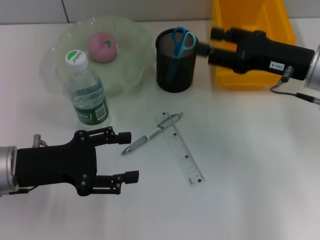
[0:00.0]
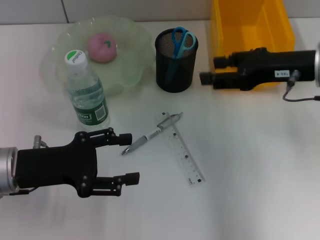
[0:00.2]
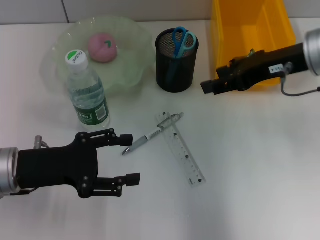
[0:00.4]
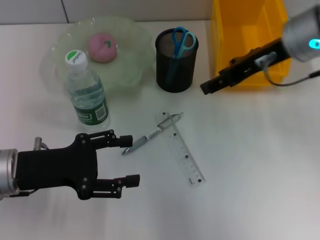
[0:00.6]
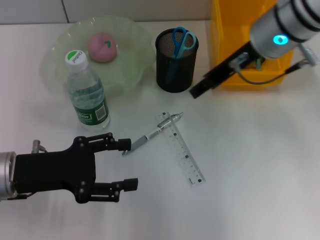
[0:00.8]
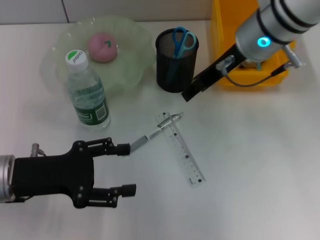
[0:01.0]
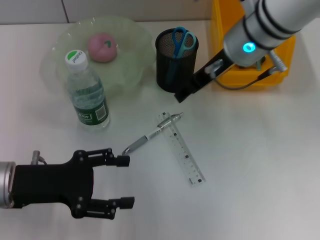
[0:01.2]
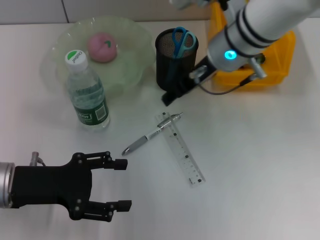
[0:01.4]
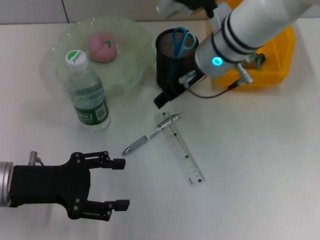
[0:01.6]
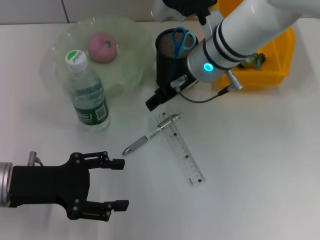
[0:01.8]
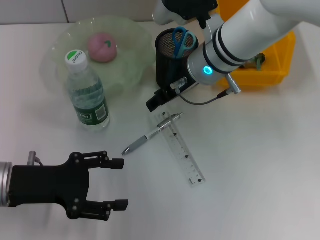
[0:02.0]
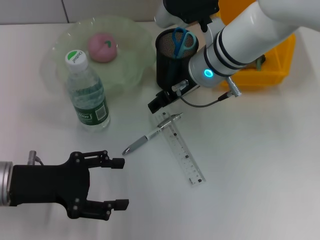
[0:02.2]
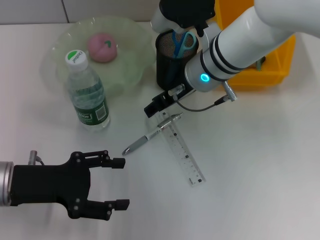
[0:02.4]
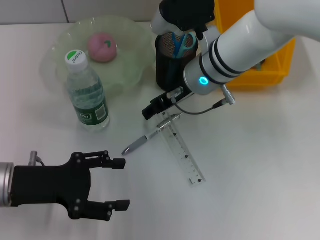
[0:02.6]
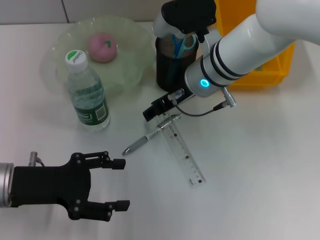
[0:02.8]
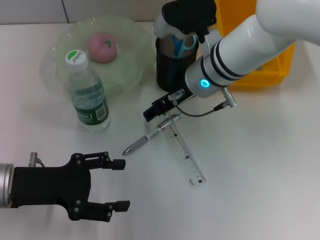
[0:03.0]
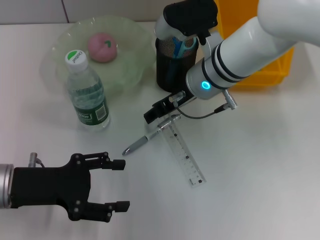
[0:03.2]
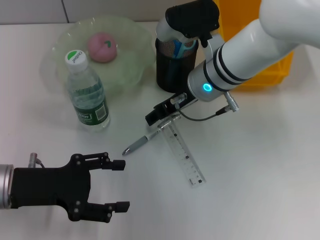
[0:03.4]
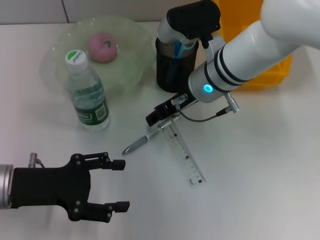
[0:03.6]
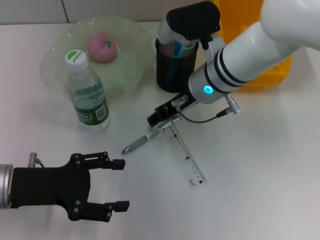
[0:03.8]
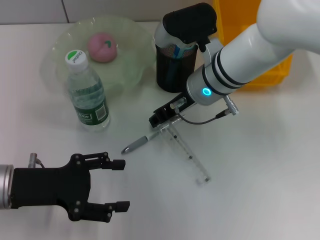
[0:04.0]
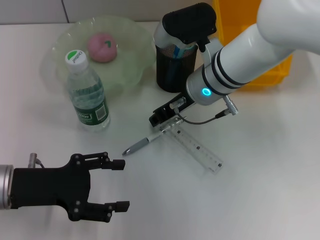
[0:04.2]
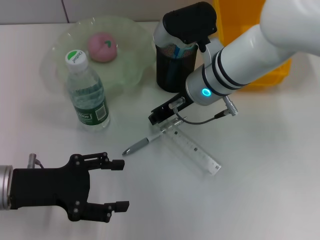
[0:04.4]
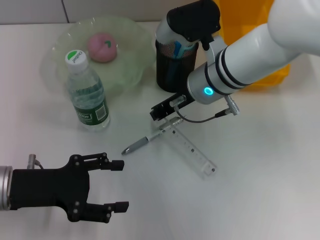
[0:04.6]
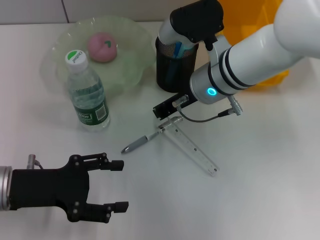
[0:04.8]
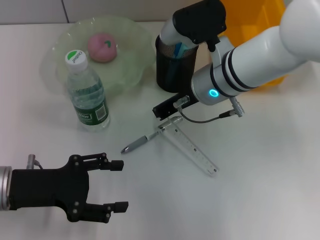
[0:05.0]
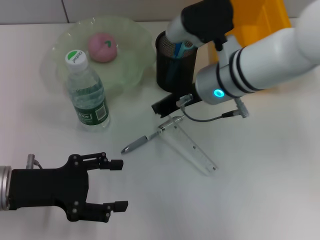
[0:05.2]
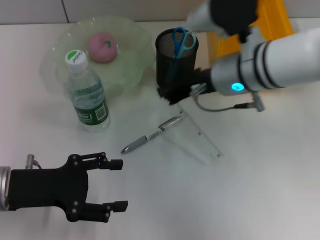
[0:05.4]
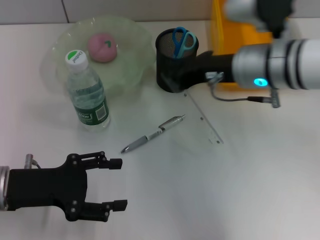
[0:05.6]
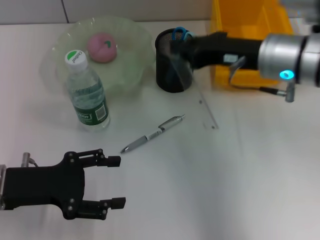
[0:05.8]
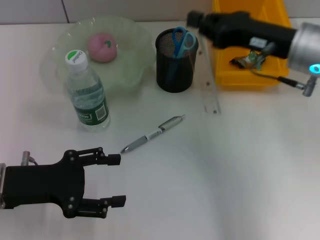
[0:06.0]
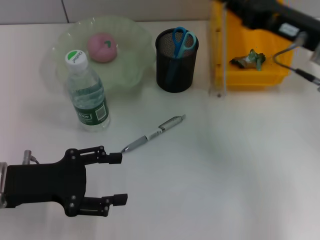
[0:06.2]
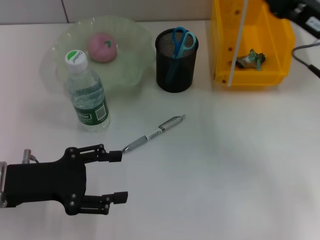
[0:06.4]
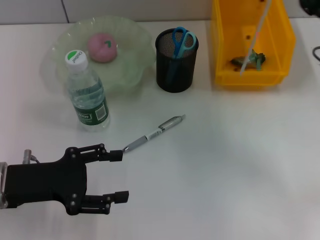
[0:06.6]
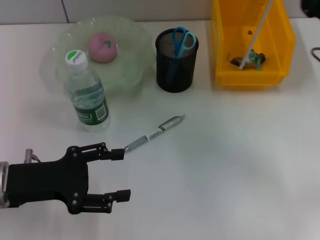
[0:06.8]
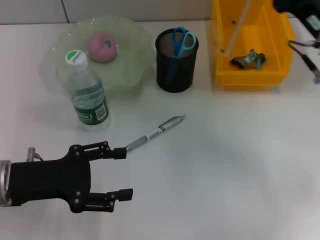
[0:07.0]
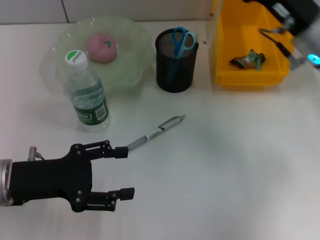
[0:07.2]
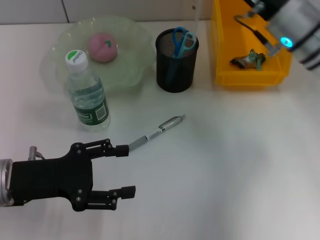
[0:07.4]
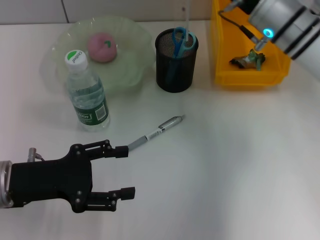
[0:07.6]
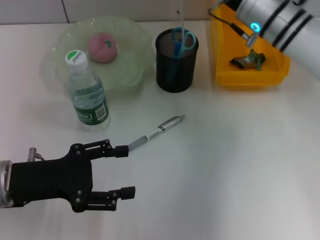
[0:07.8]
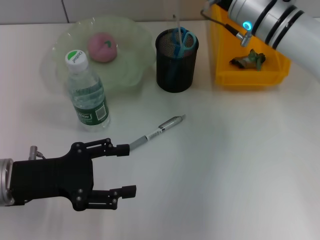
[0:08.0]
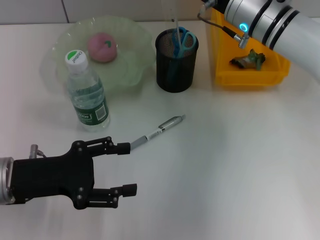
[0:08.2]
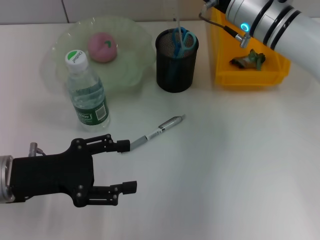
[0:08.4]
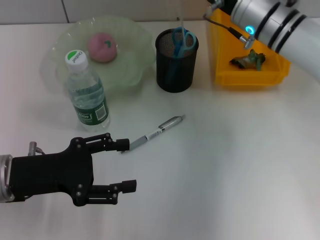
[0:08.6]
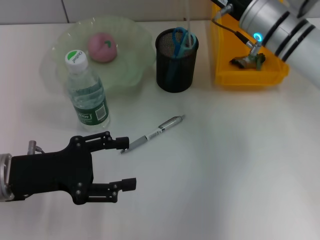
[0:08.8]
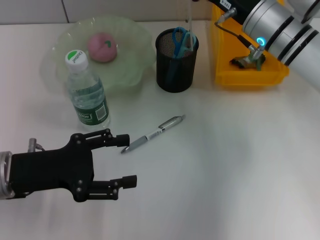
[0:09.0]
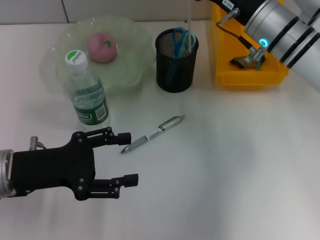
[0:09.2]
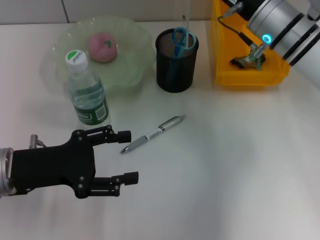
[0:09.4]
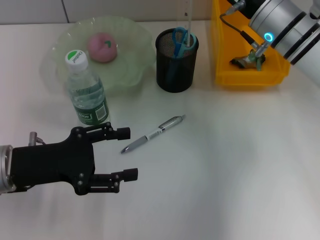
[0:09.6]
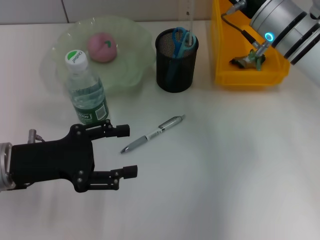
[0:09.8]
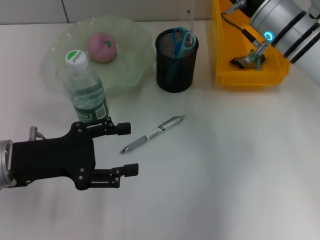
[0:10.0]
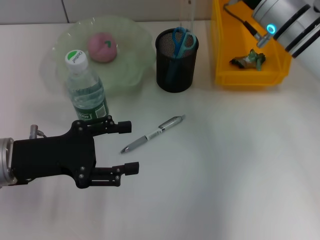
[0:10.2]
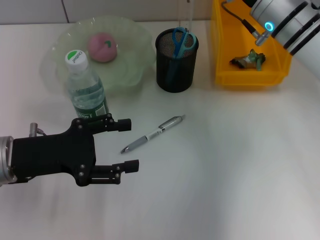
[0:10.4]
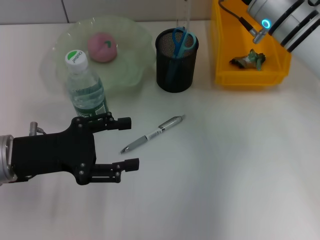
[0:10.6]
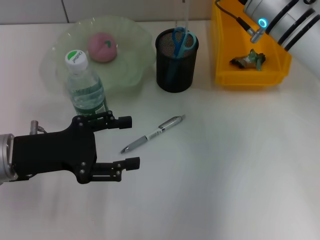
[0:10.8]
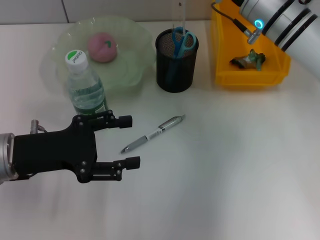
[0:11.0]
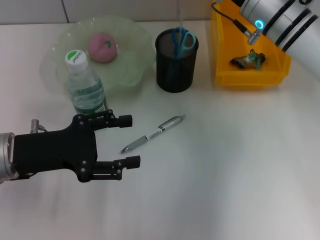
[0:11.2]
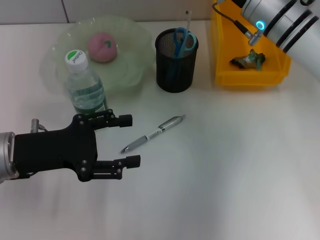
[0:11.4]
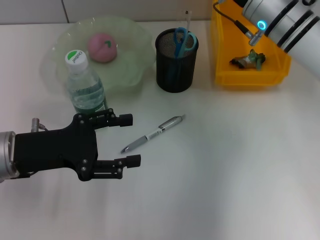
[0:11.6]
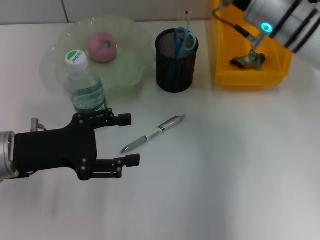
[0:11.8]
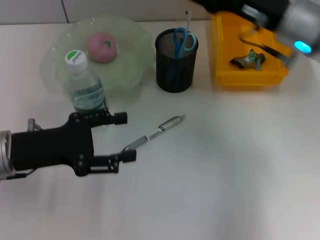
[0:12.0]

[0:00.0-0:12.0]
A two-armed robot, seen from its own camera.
Step, 0:00.0 to 0:04.8: Grab the ruler with the right hand.
0:00.0 to 0:01.6: The right gripper moves to the left, roughly 15 cm.
0:01.6 to 0:03.0: The grippers stay close to where they were, moving slightly.
0:03.0 to 0:04.4: The right gripper closes up.
0:04.4 to 0:06.0: The right gripper travels to the right by approximately 15 cm, and closes.
0:06.0 to 0:07.6: The right gripper is displaced forward by some 5 cm.
0:07.6 to 0:10.4: The grippers move only a little.
0:10.4 to 0:12.0: The right gripper travels backward by about 5 cm, and opens up.

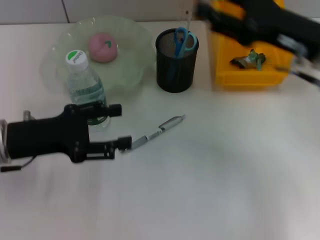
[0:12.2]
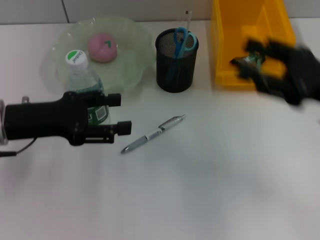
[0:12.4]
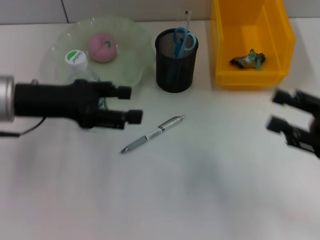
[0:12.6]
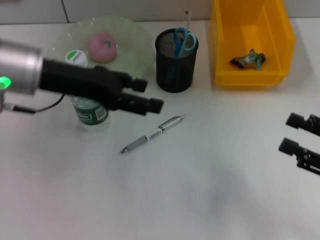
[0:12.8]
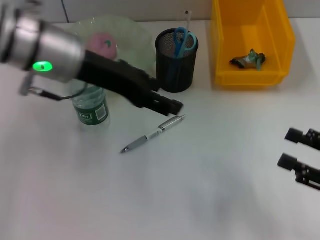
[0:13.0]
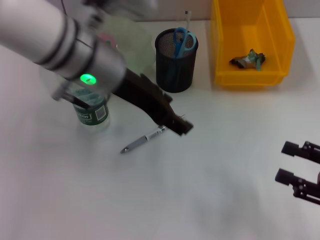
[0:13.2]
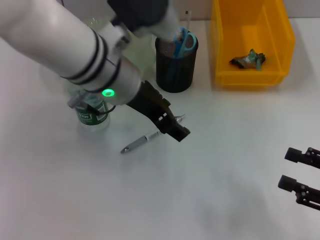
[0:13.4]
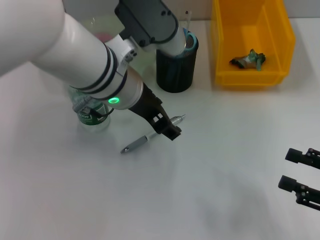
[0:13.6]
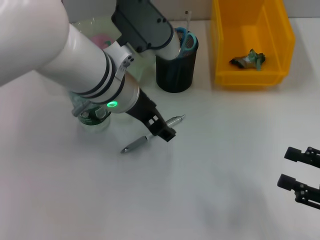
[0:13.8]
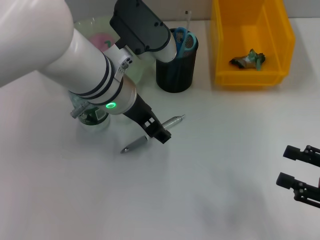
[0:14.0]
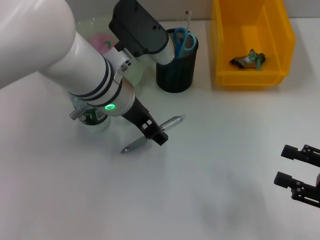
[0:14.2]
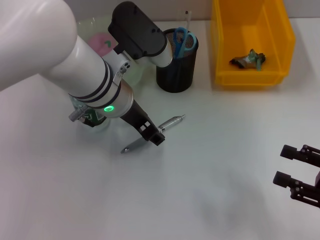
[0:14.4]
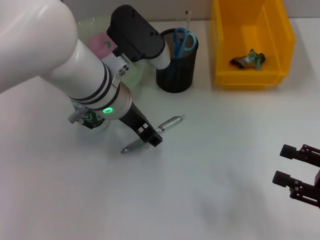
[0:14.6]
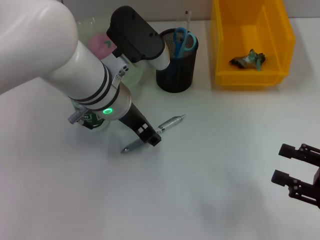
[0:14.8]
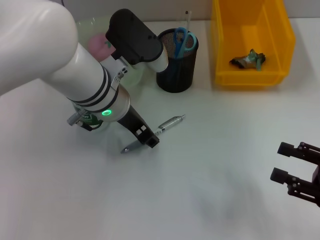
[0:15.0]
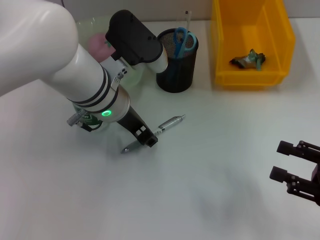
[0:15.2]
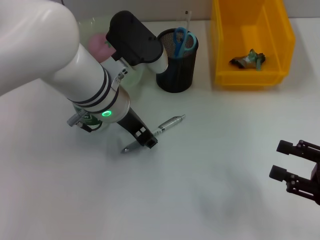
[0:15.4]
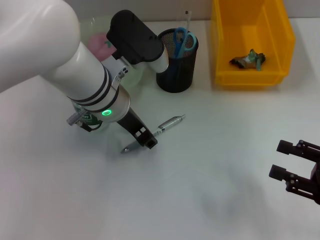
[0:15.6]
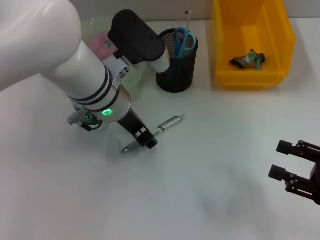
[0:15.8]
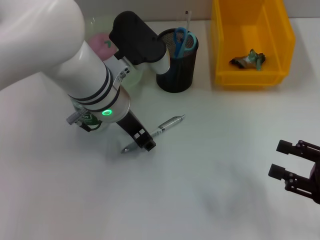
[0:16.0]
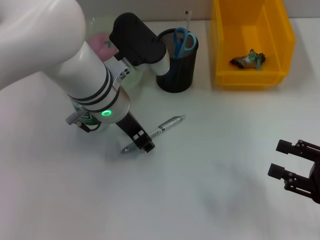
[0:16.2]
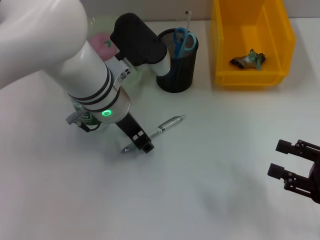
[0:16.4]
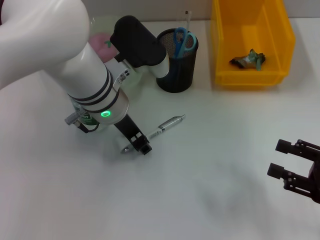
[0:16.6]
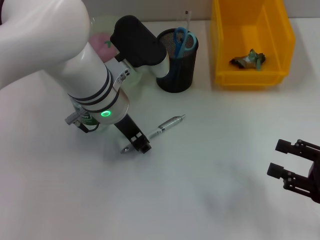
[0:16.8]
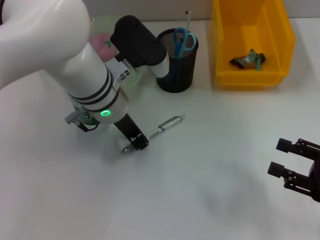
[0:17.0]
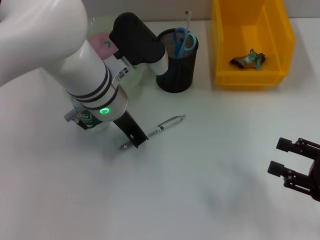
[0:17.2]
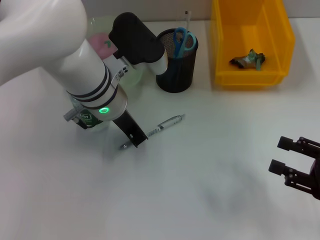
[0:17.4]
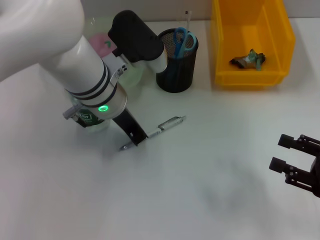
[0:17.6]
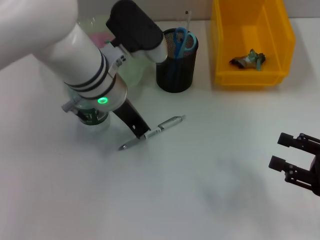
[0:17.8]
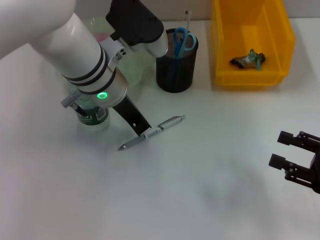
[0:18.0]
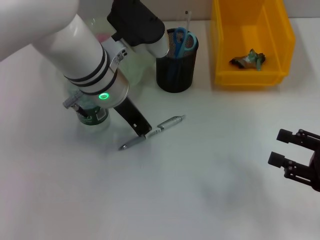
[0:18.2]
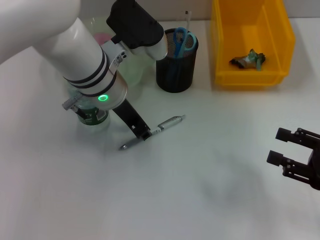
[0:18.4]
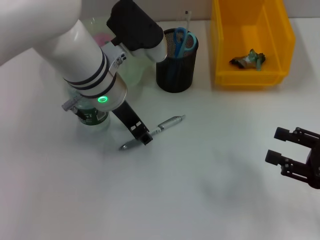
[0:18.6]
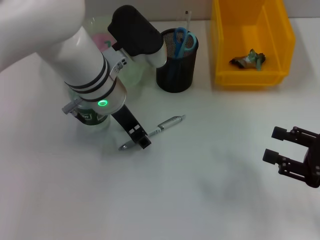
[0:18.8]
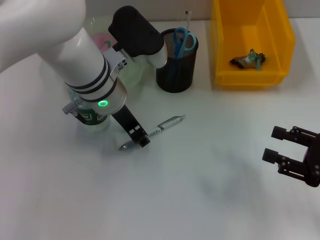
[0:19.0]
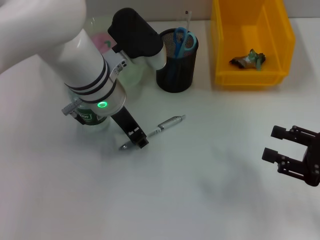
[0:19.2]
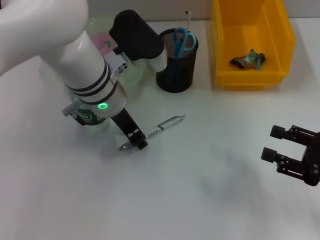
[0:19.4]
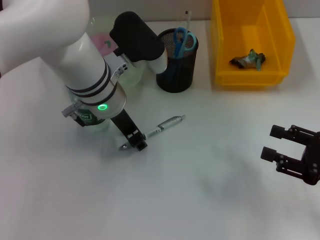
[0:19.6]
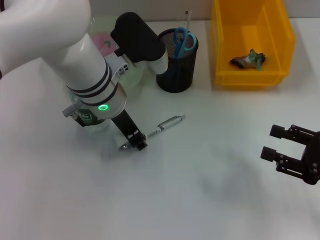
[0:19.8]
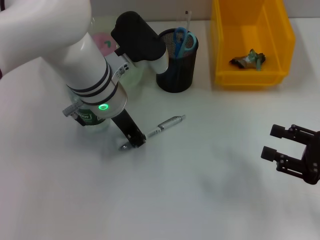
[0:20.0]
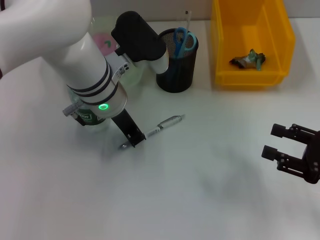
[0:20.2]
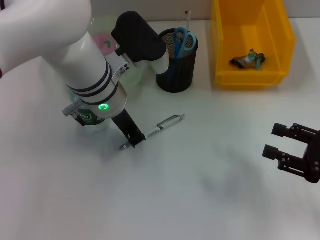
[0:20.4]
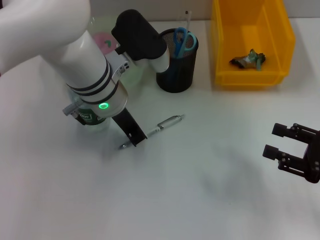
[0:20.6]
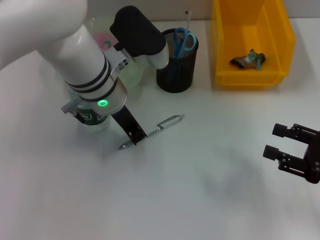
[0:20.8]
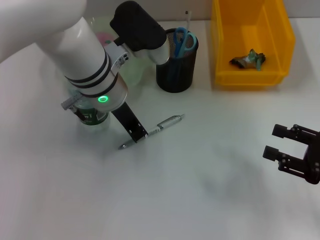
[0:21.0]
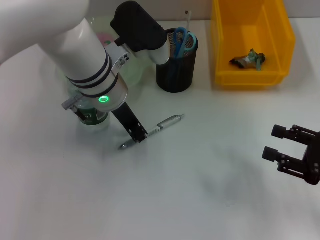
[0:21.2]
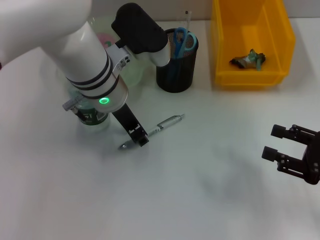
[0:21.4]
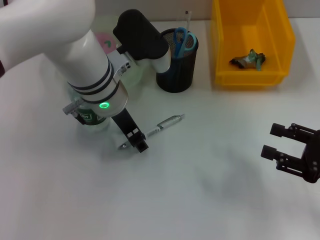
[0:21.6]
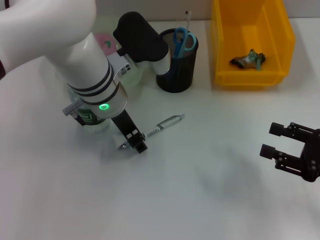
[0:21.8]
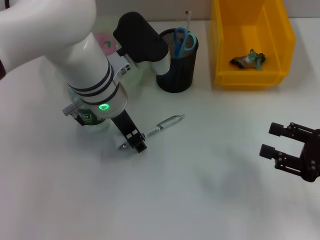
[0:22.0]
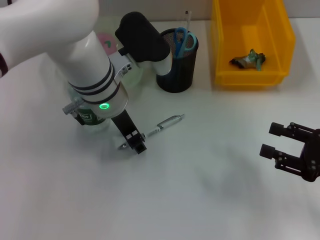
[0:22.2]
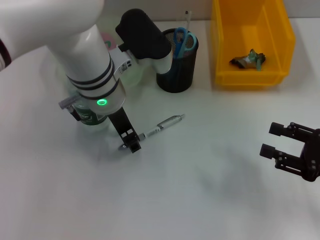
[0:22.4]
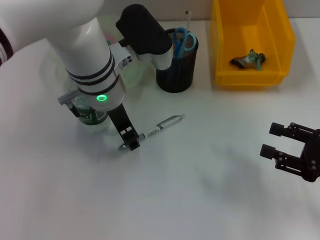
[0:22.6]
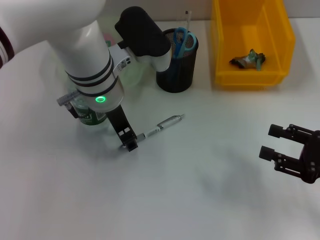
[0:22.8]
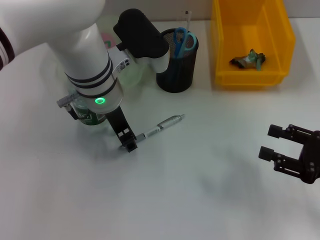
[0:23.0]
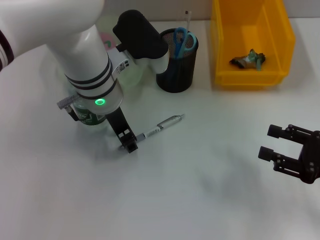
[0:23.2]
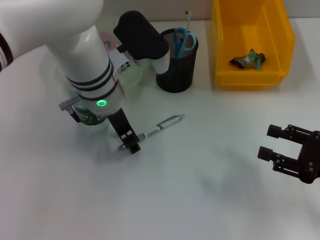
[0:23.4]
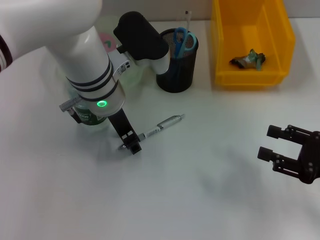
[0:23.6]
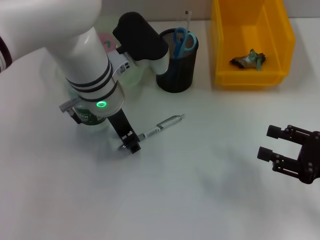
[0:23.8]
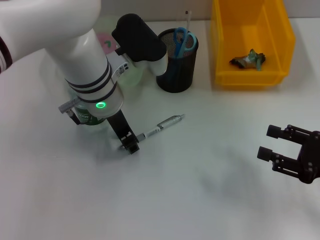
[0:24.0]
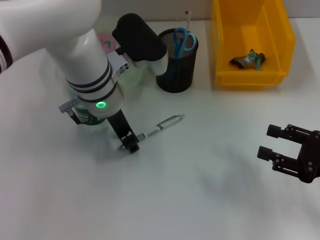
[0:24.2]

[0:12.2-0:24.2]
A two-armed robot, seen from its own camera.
Step, 0:12.4 to 0:20.0: Grab the gray spring-action pen with the left hand.
0:12.2 to 0:13.8: The right gripper heads backward, to the right and downward, covering about 20 cm. Meanwhile the left gripper is displaced to the right by about 20 cm.
0:13.8 to 0:16.6: The grippers stay close to where they were, moving slightly.
0:16.6 to 0:18.2: The left gripper closes its fingers.
0:18.2 to 0:19.8: The left gripper opens up.
0:19.8 to 0:21.2: The left gripper closes up.
0:21.2 to 0:22.6: The left gripper opens.
0:22.6 to 0:24.2: The grippers move only a little.
